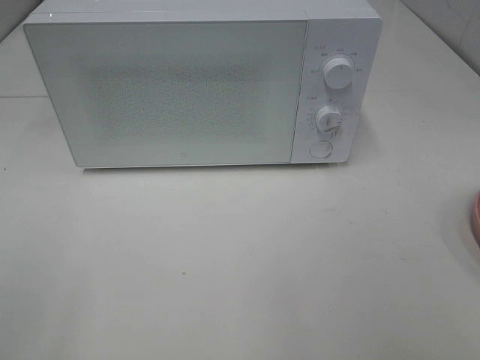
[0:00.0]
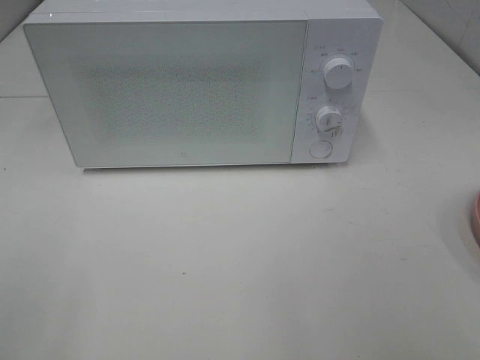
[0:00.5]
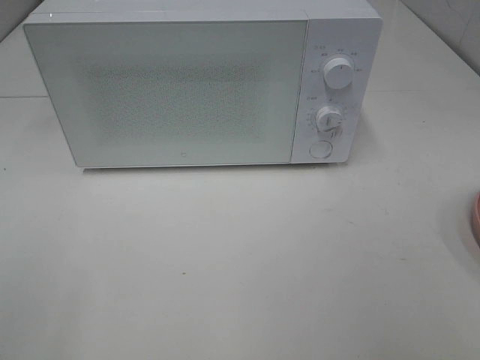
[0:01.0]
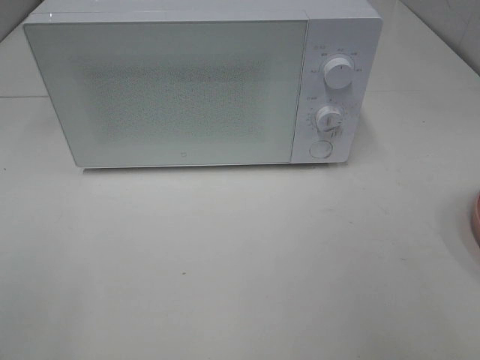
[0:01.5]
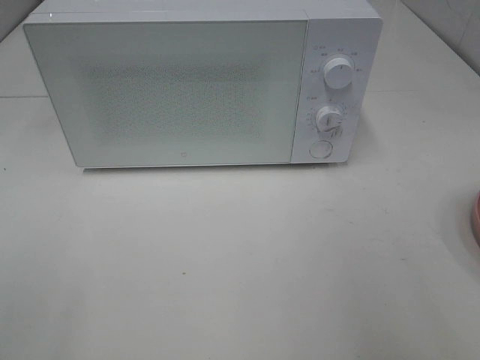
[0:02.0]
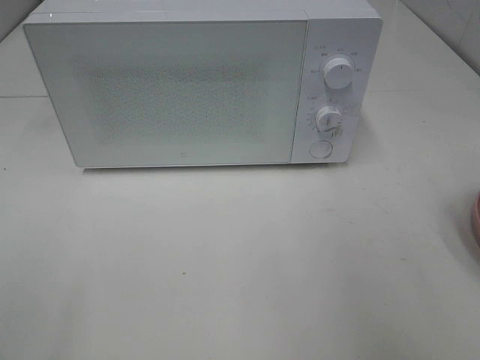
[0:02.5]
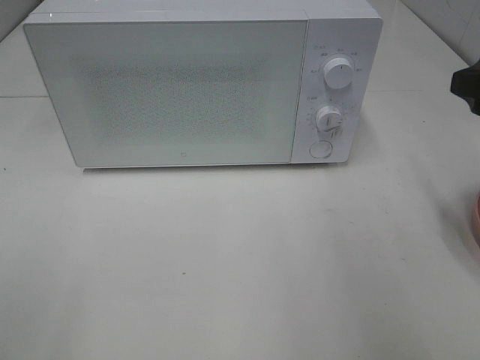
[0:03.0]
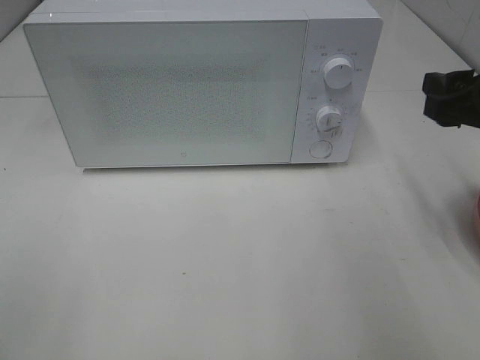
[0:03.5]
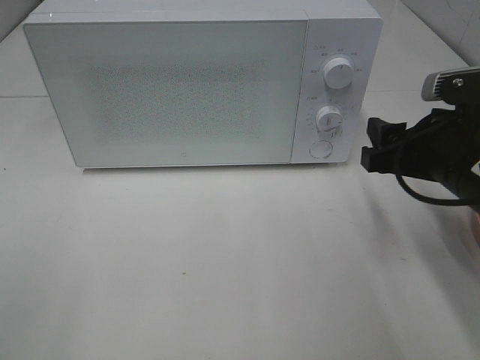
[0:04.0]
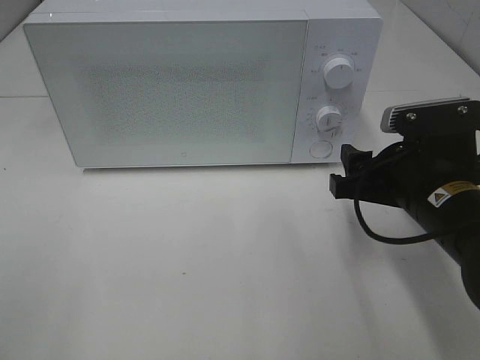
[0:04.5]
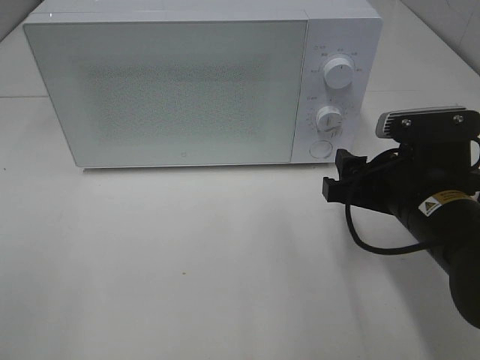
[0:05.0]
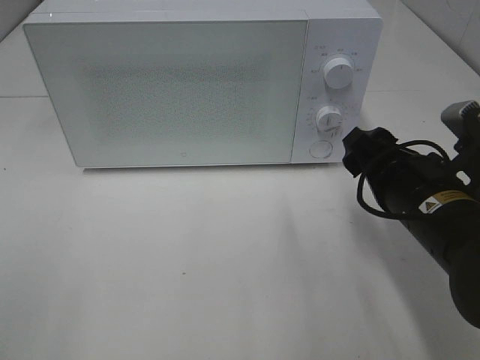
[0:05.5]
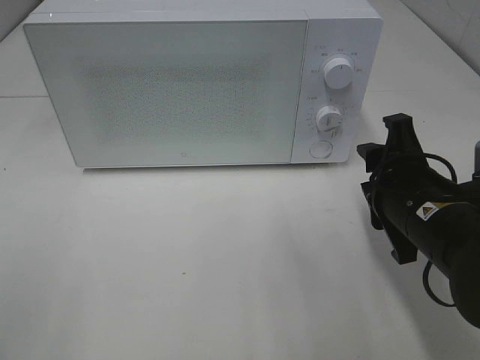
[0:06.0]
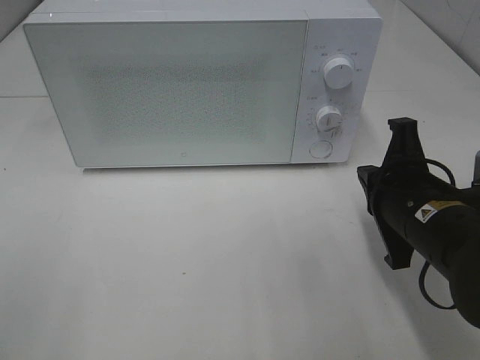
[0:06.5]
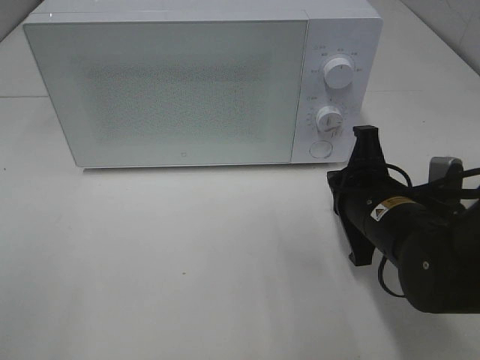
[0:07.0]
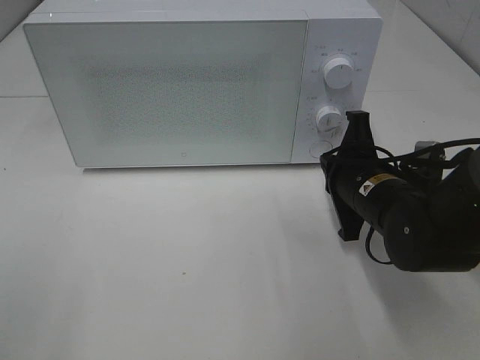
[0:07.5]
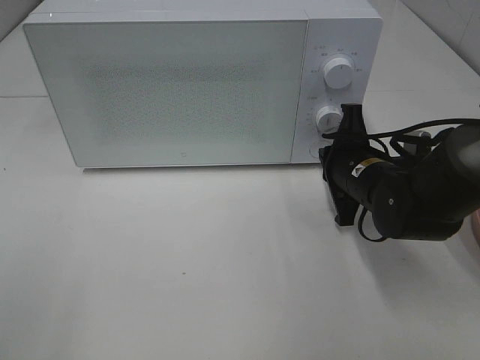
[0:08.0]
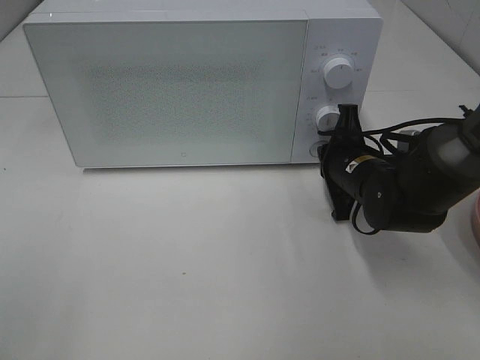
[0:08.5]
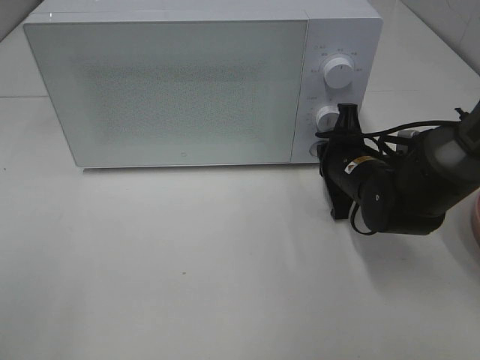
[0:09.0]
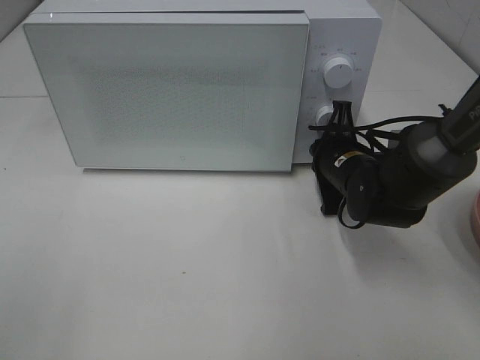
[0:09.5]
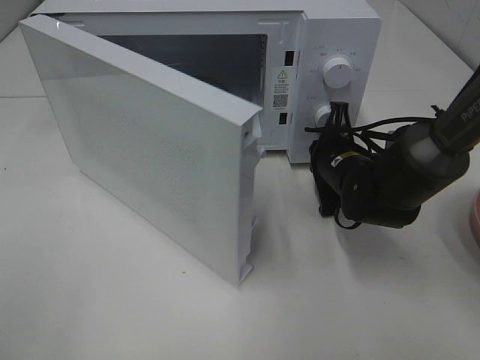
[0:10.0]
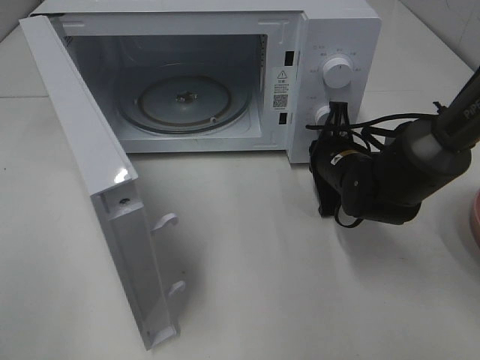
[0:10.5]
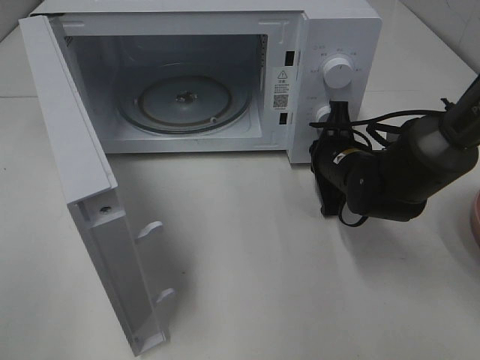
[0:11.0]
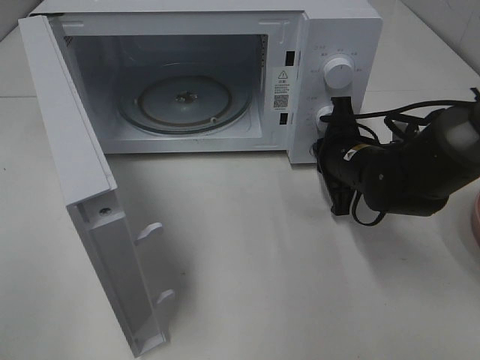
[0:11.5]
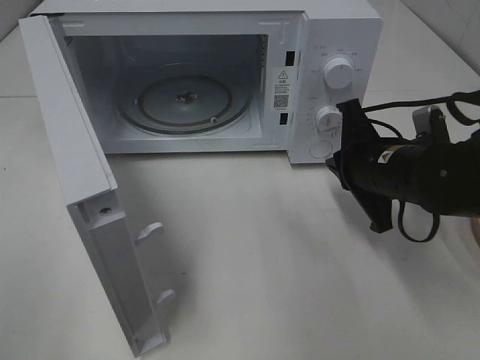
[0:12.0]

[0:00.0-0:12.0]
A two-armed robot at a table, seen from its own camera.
Task of the whole recording: Heat Sandwich.
Step, 0.0 to 11.5 s: Right hand: press the switch.
2.0 to 4.0 s: The right gripper goes approximately 20 cm downward, forward and to the left.
4.0 to 6.0 s: The right gripper changes place by some 5 cm.
6.0 to 8.0 s: The right gripper travels forward by approximately 10 cm, and closes.
10.0 to 12.0 s: The right gripper goes some 10 cm backward and upward.

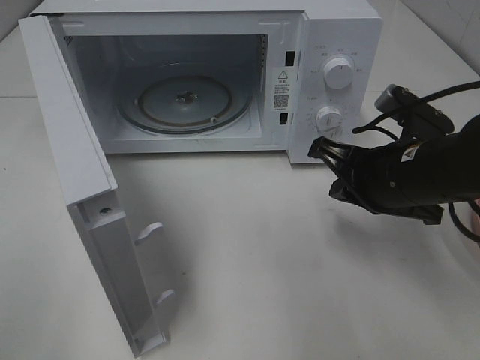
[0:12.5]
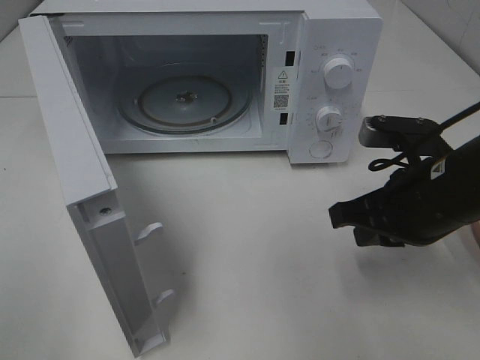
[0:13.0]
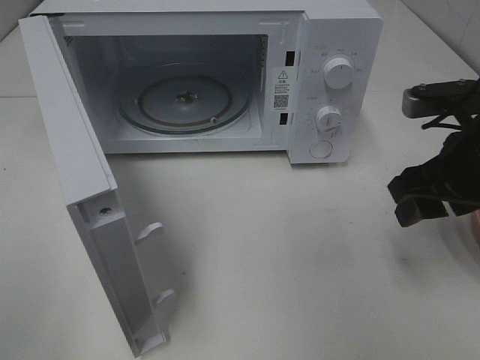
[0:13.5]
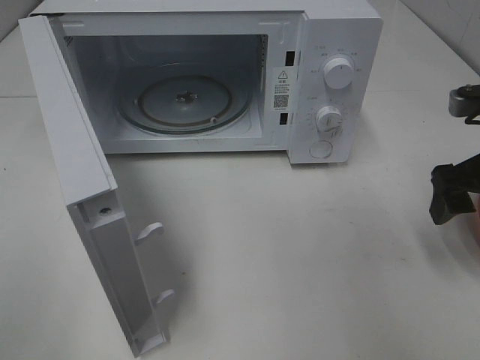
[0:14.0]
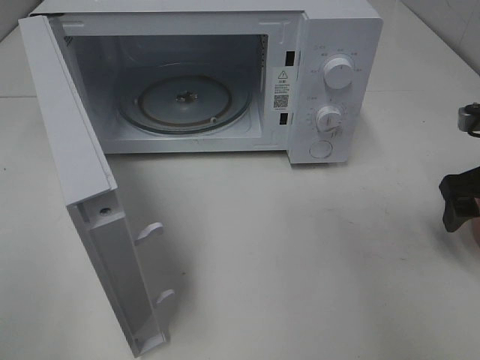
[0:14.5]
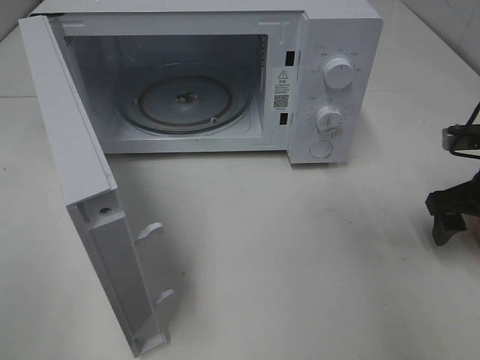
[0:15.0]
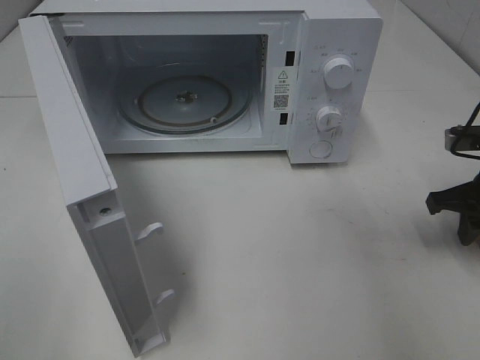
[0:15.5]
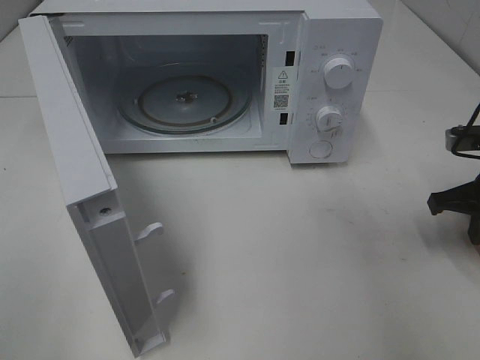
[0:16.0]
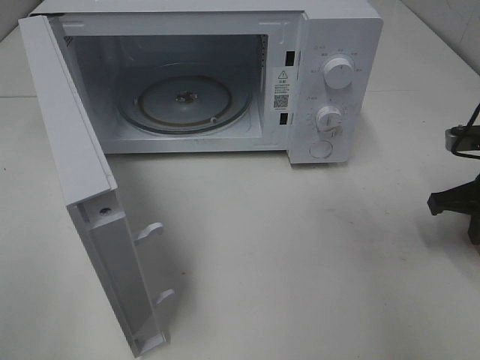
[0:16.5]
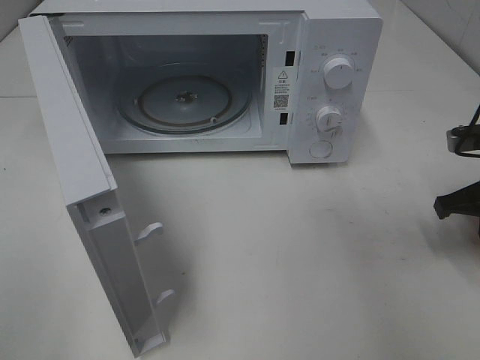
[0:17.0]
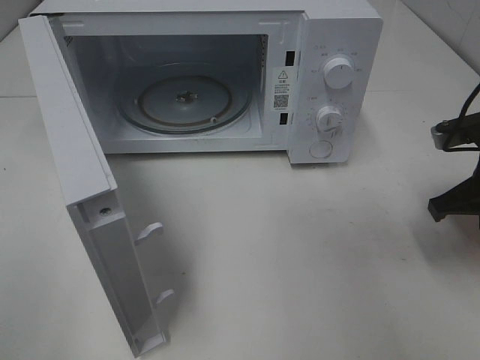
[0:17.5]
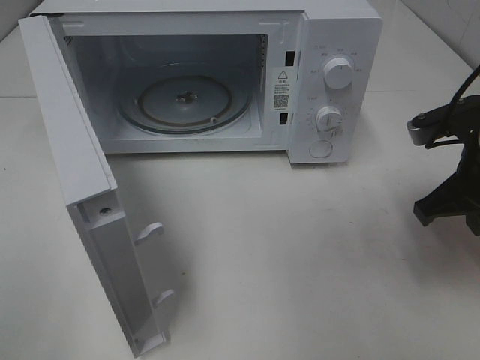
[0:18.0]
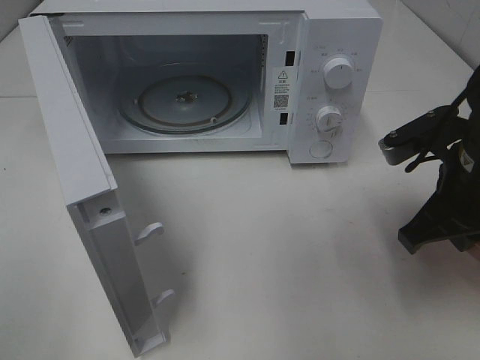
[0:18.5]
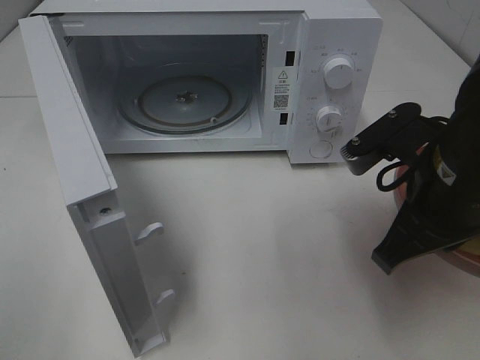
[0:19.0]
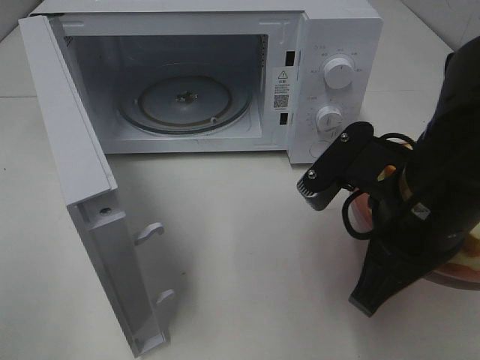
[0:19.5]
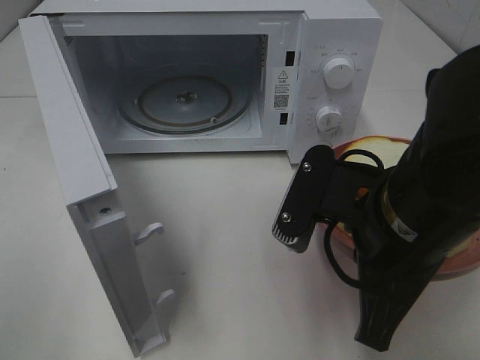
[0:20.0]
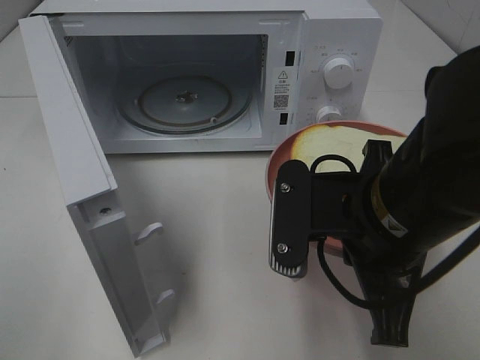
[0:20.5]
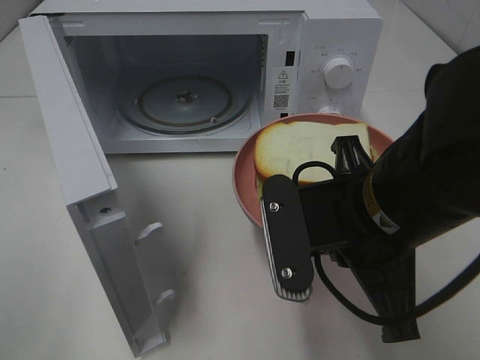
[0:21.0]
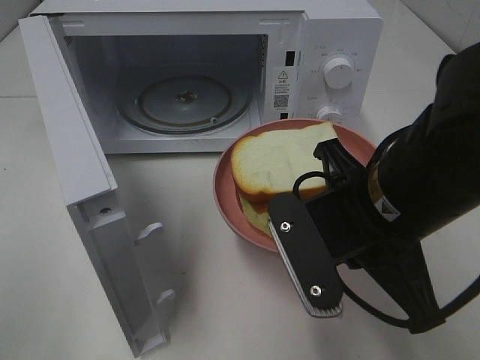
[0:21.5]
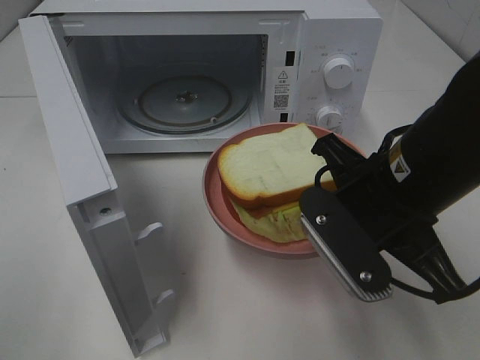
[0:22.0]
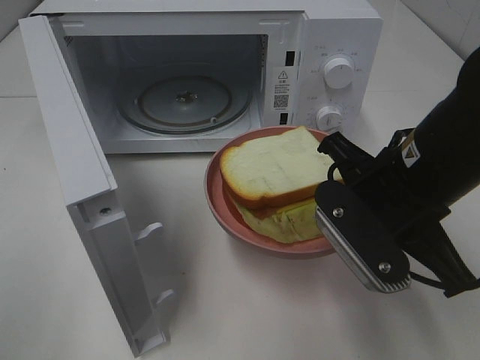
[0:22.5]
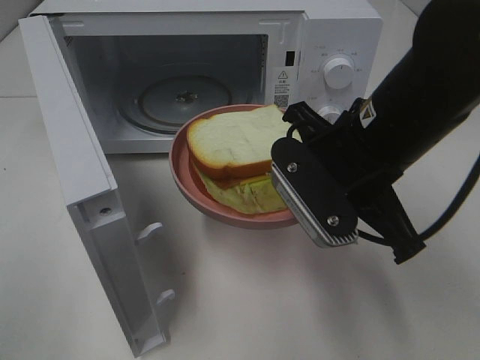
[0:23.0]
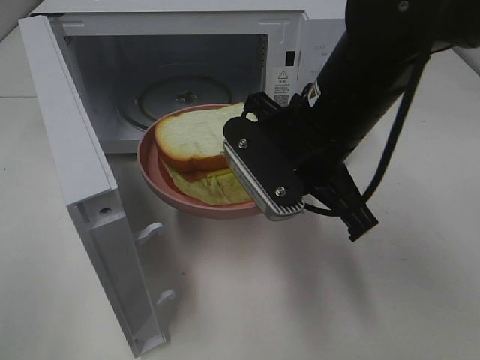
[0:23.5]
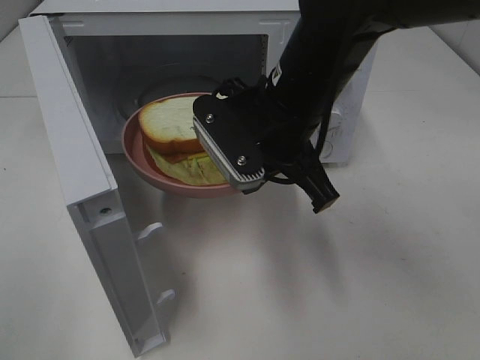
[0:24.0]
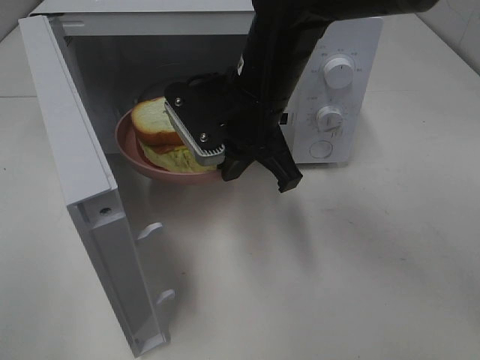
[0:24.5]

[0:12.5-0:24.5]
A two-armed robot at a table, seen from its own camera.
Task of the whole recording: Heat Sandwich.
Step, 12.5 to 17.5 s: Right hand: grab the plate with the sandwich.
12.5 to 14.5 s: The right gripper heads to the right, covering about 15 cm, and opens up.
14.5 to 16.5 s: The right gripper closes its fingers.
16.5 to 18.5 s: The right gripper is displaced to the left, backward and upward by roughly 15 cm.
18.5 to 20.5 s: The right gripper goes some 10 cm to the left and backward.
20.5 to 22.5 s: The right gripper ends up approximately 5 cm from where it was.
22.5 to 24.5 s: The right gripper shifts some 15 cm to the left and forward.

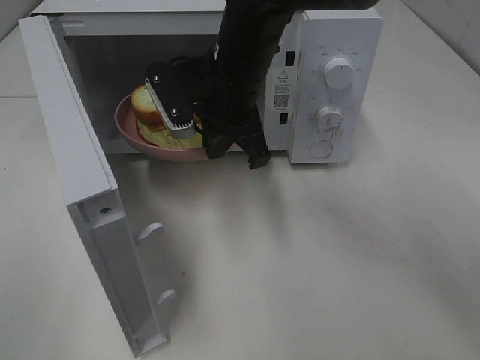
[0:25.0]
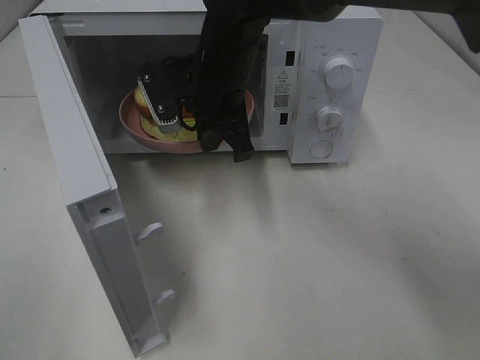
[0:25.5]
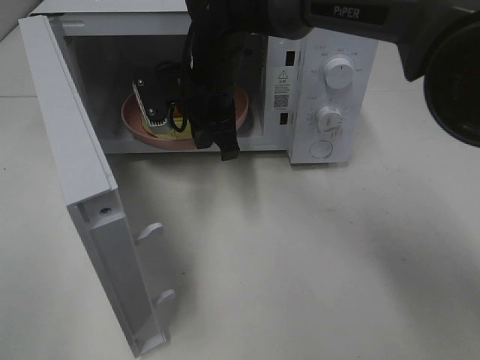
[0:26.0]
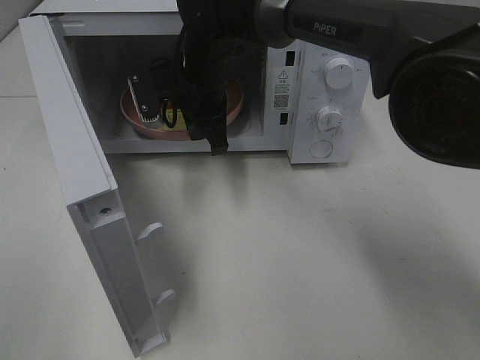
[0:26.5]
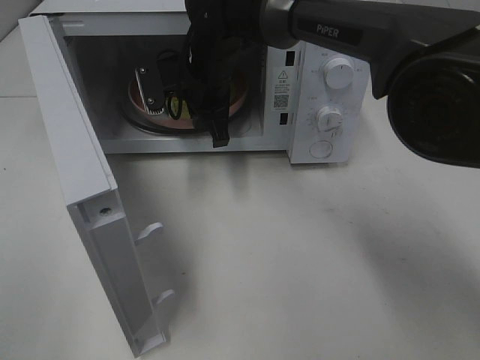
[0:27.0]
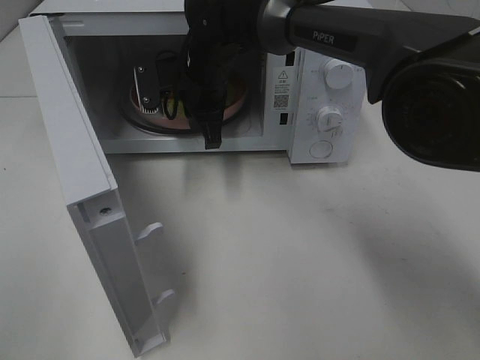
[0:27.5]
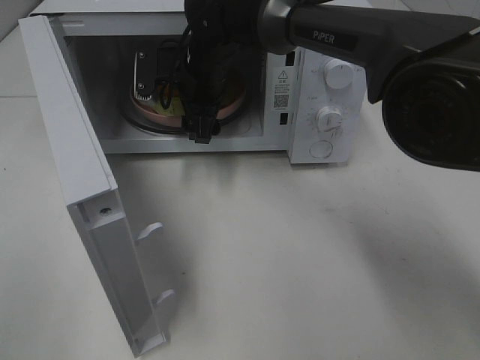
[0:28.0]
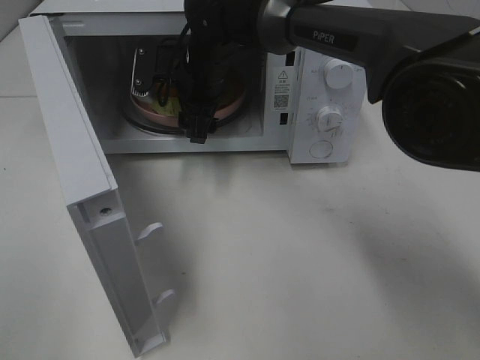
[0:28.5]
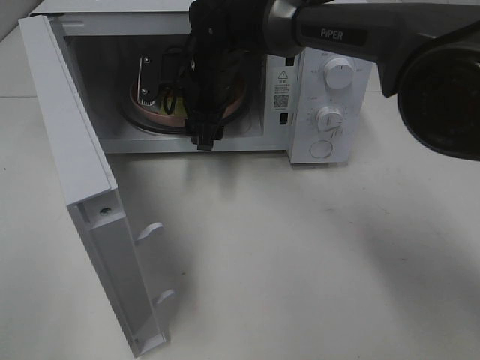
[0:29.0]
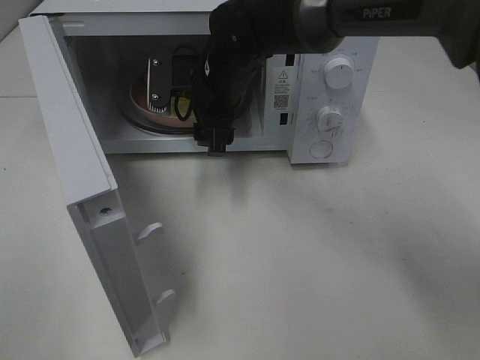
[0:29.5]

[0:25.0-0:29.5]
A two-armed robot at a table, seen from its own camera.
Task of the whole recording: Heat Sandwich.
Step, 25.0 to 29.5 s: Right hand: place the plate in the microwave.
25.0 to 27.0 s: The right gripper heads forward, covering about 10 cm.
27.0 to 29.5 s: The right gripper opens up.
